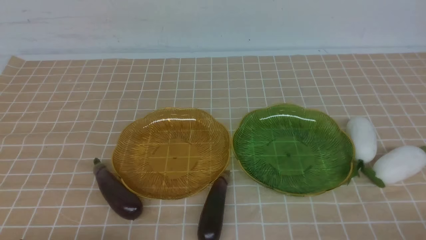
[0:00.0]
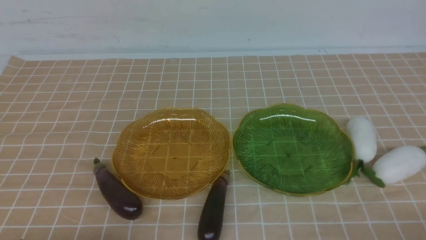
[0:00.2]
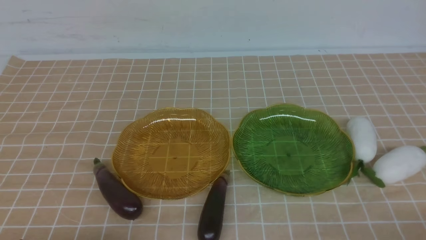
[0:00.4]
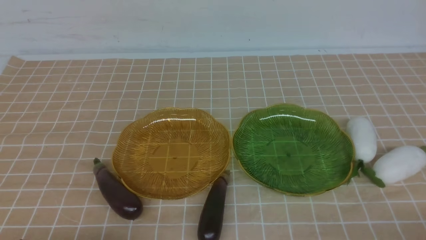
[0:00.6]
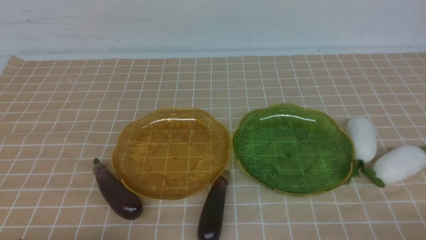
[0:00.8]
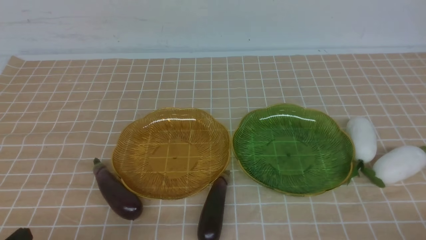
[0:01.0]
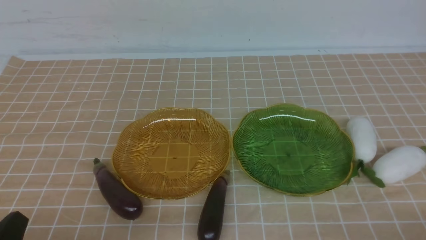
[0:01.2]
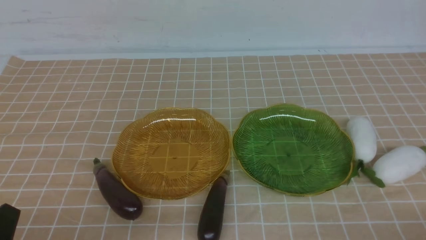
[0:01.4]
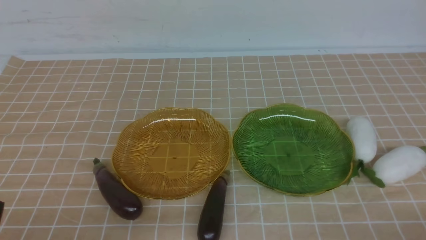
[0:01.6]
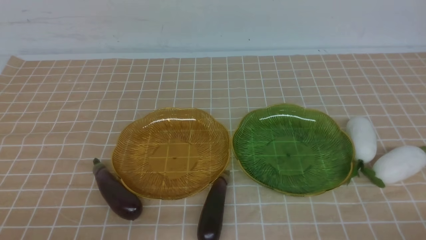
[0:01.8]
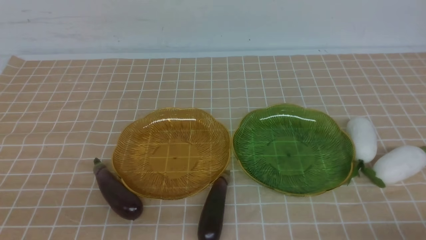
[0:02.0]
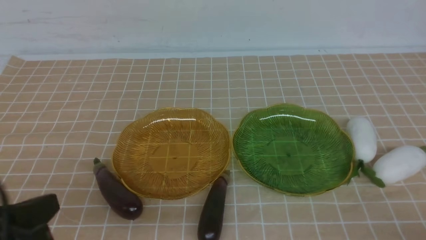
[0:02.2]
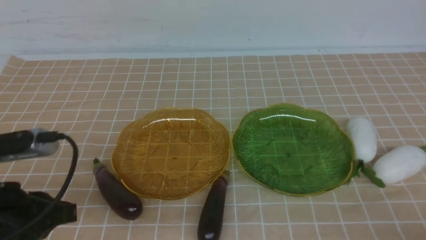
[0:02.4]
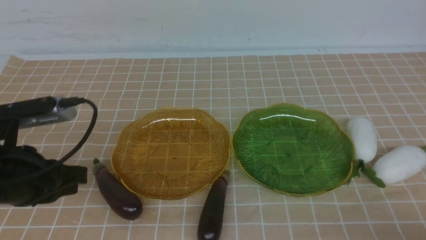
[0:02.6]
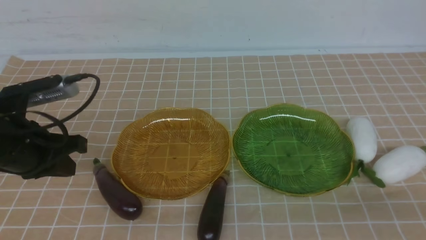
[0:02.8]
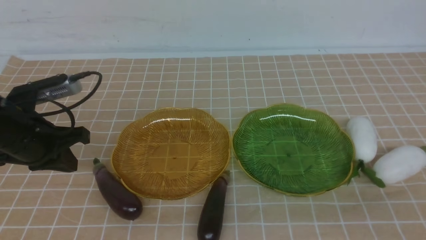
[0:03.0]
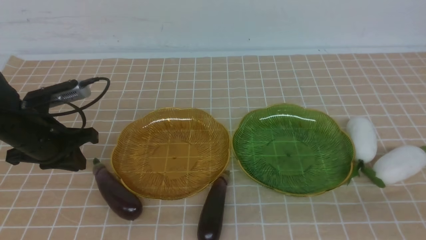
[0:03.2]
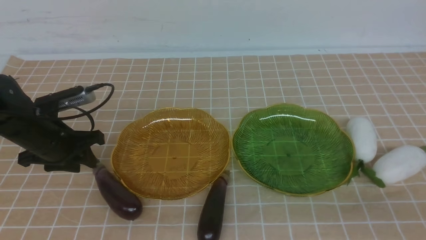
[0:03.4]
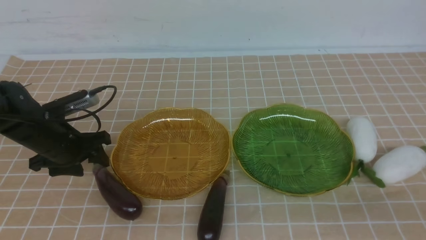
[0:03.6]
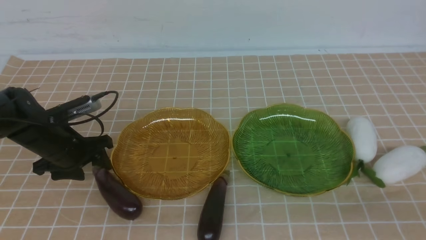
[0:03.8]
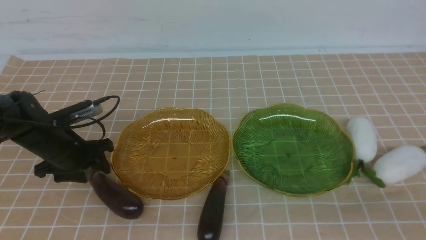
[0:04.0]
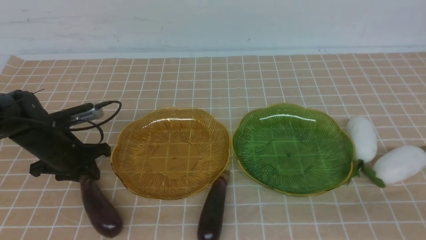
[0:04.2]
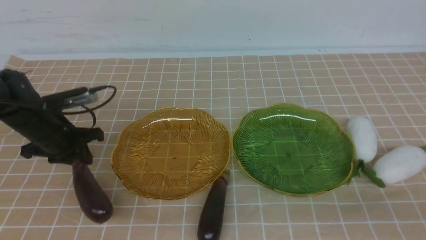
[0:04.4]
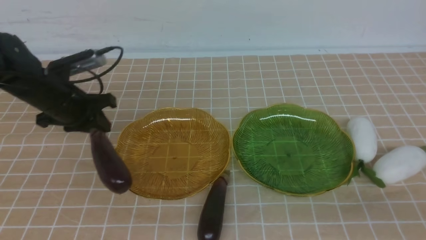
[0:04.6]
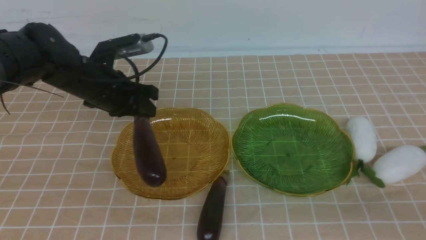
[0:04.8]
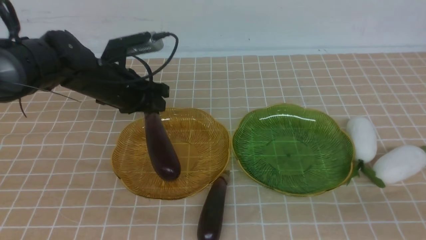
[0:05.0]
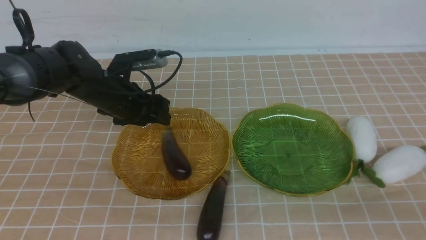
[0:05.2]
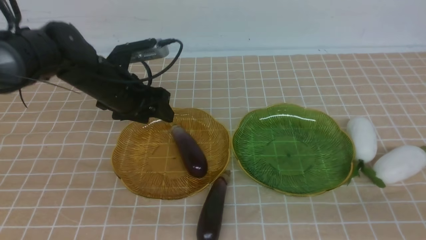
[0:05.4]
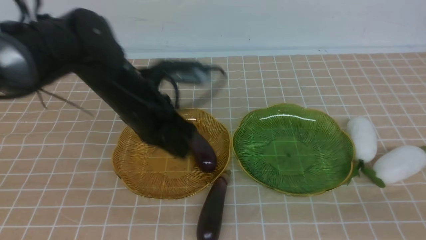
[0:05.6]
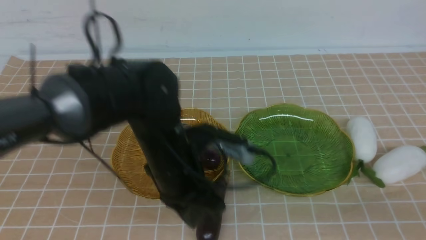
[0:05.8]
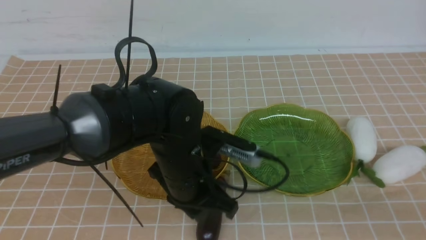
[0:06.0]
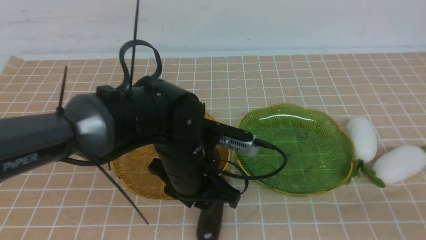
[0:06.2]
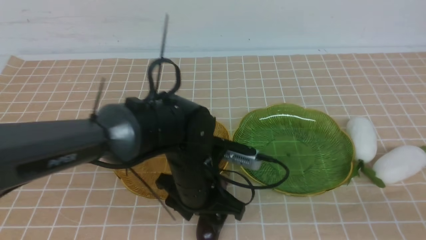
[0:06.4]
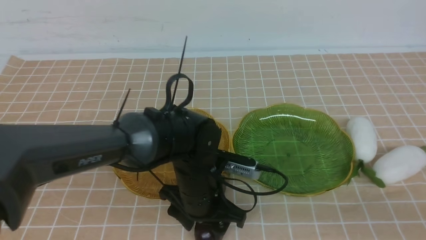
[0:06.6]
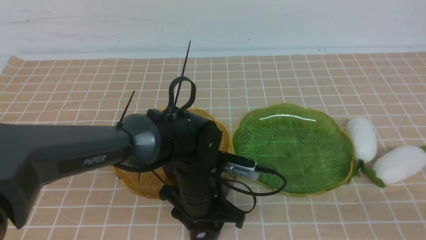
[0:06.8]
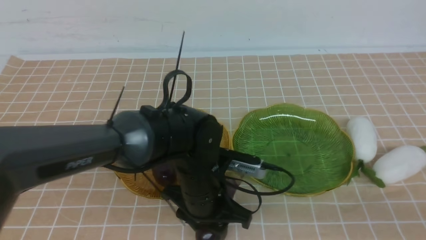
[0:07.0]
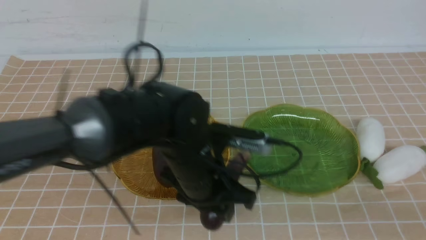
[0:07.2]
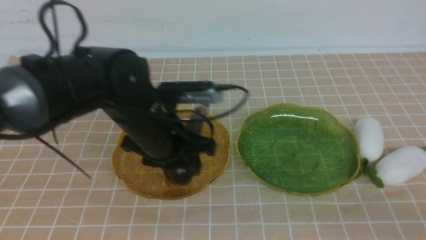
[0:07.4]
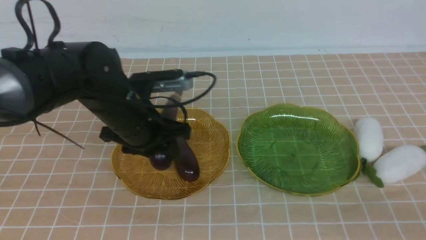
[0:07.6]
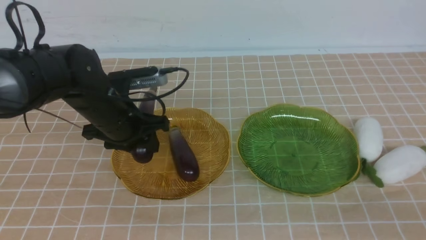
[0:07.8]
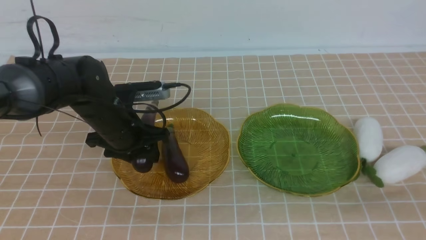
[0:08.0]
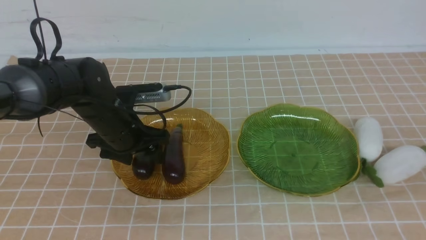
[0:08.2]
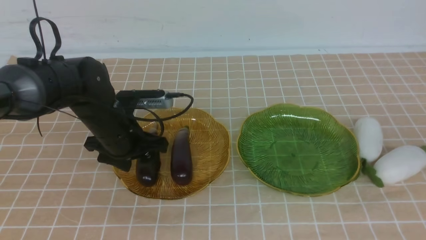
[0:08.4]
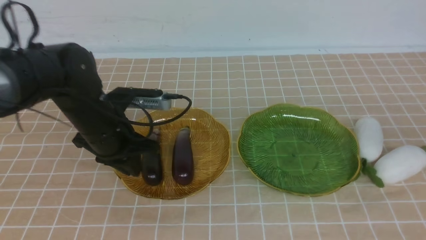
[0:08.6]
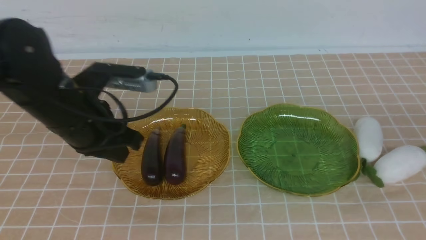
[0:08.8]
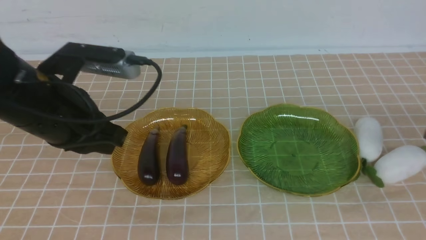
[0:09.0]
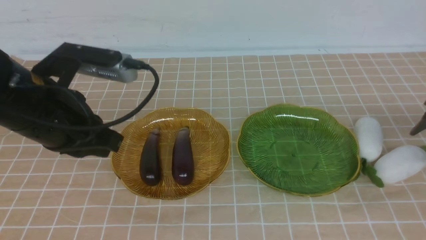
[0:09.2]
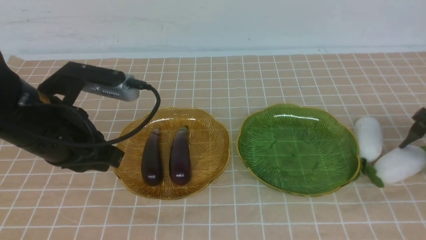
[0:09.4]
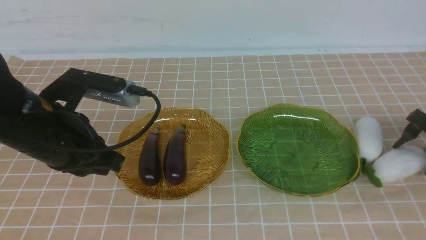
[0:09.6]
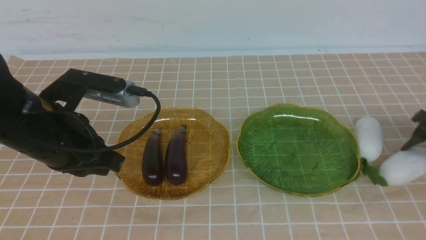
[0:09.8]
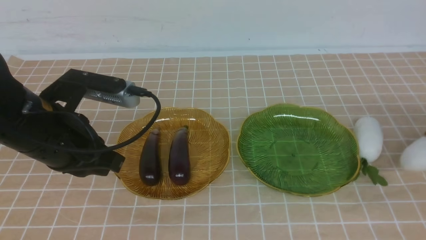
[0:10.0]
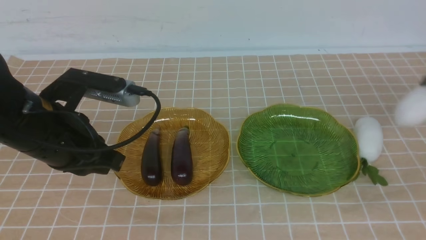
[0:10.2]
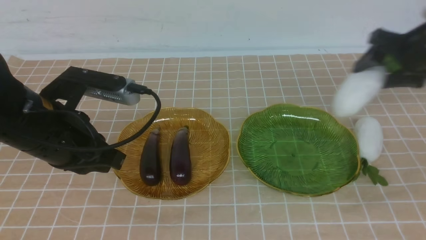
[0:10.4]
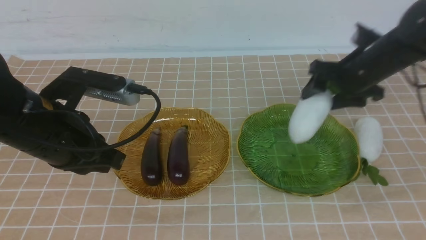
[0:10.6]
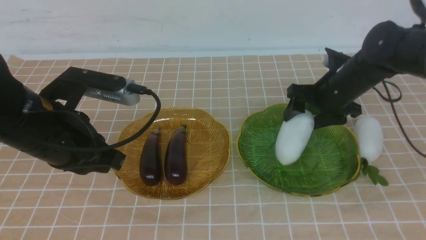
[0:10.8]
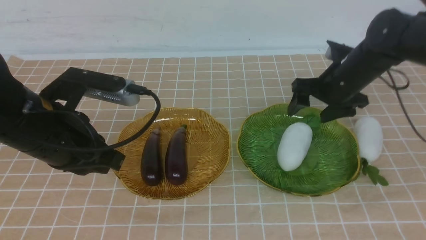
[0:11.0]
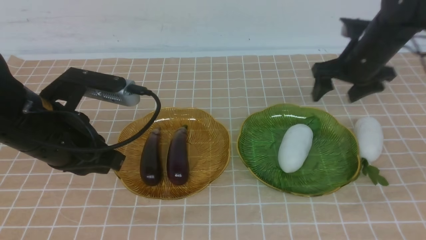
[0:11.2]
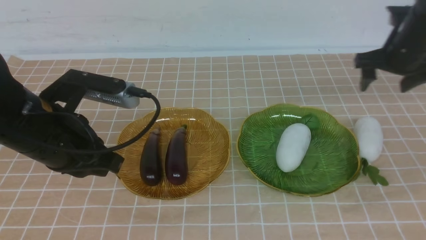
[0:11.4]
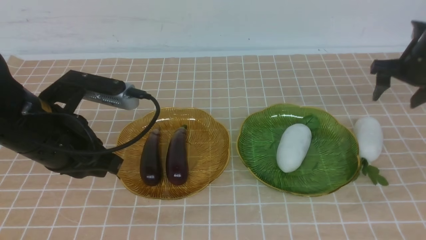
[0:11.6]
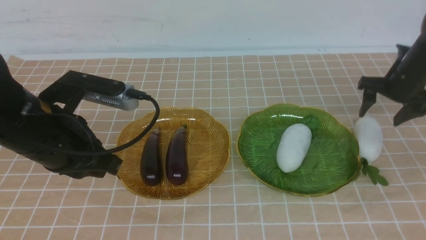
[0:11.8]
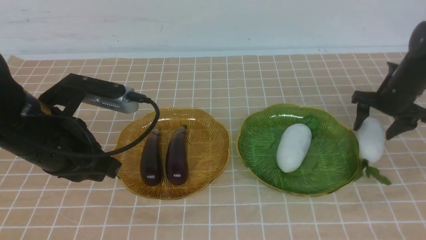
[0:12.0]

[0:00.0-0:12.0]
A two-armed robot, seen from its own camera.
Step, 0:00.0 to 0:05.2: use the left arm to grab an eggplant and put it into the left plate.
Step, 0:05.6 to 0:08.4: use the left arm to grab an eggplant and put it into the left plate.
0:01.6 to 0:03.0: The left gripper moves forward, roughly 25 cm.
0:03.0 to 0:04.4: The left gripper is displaced forward by approximately 10 cm, and opens, then closes once more.
0:04.4 to 0:06.0: The left gripper is displaced to the right and backward by roughly 25 cm, and opens, then closes once more.
0:06.0 to 0:07.6: The left gripper heads to the left and forward, covering approximately 10 cm, and opens up.
0:07.6 to 0:09.0: The right gripper travels forward and to the right by approximately 30 cm, and opens its fingers. The left gripper travels upward, backward and to the left by some 15 cm, and closes up.
0:09.0 to 0:10.4: The right gripper shifts about 10 cm forward and to the left.
0:10.4 to 0:12.0: The right gripper is displaced downward and forward by about 10 cm, and reaches approximately 10 cm to the left, then returns.

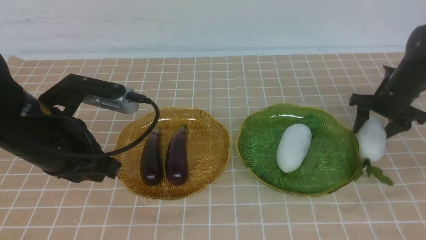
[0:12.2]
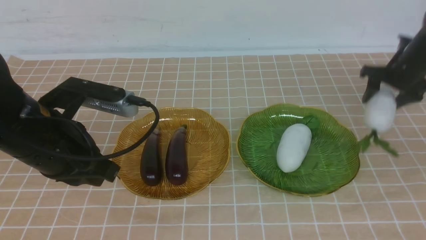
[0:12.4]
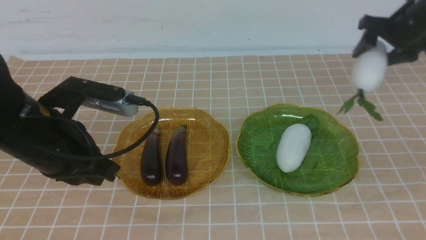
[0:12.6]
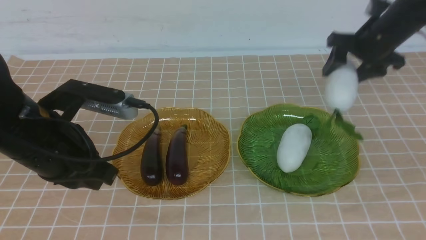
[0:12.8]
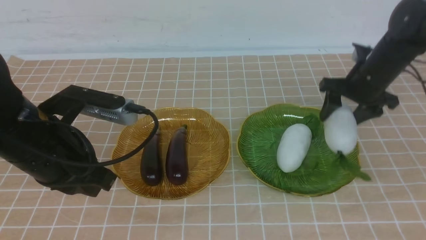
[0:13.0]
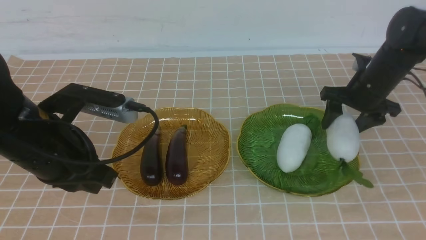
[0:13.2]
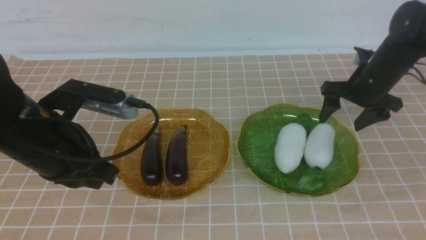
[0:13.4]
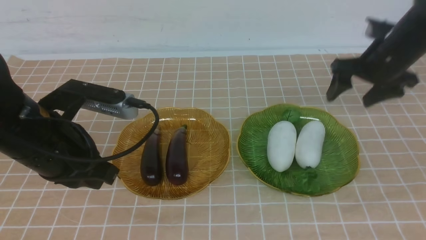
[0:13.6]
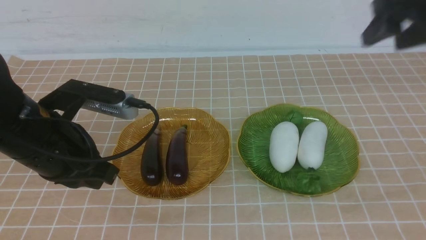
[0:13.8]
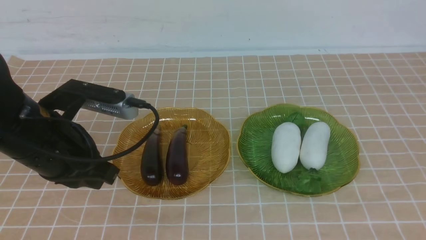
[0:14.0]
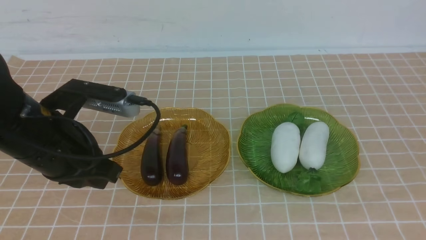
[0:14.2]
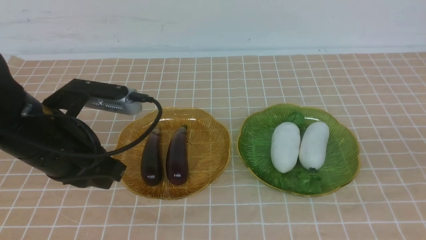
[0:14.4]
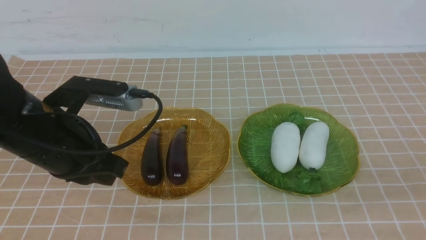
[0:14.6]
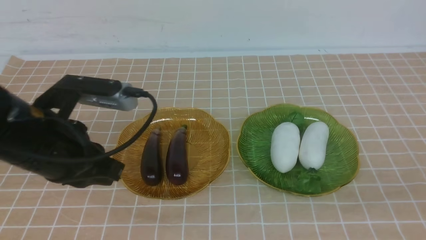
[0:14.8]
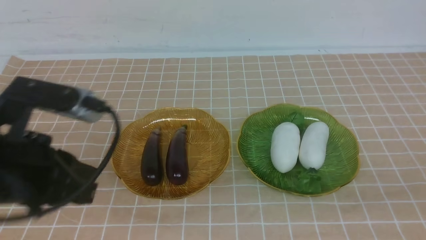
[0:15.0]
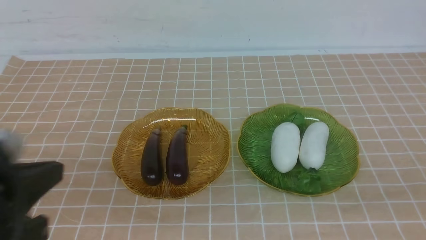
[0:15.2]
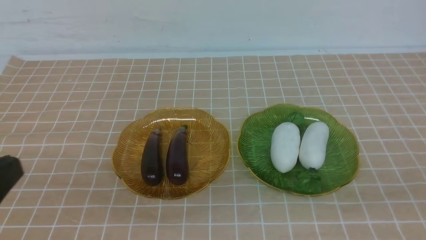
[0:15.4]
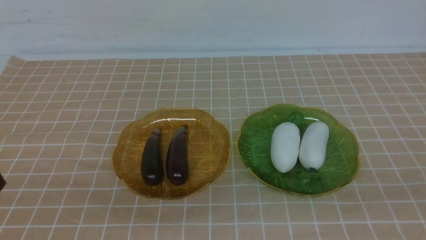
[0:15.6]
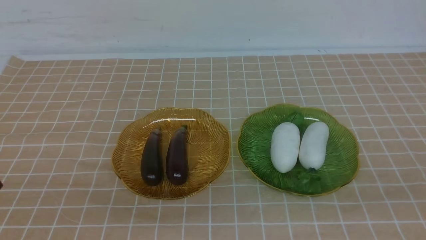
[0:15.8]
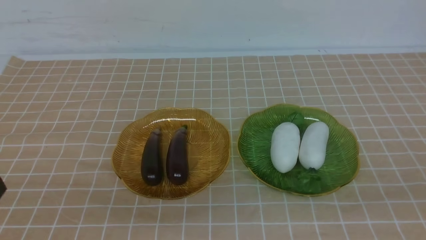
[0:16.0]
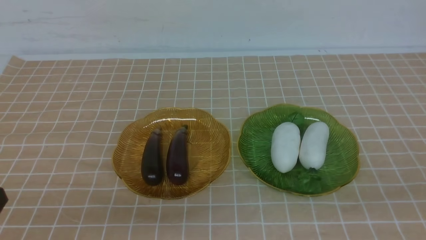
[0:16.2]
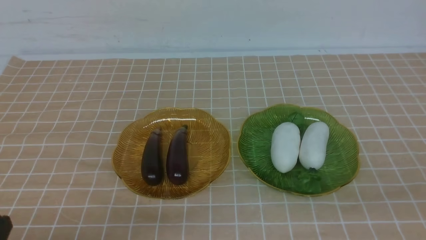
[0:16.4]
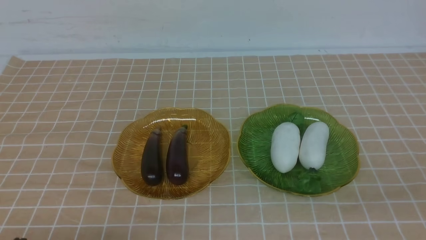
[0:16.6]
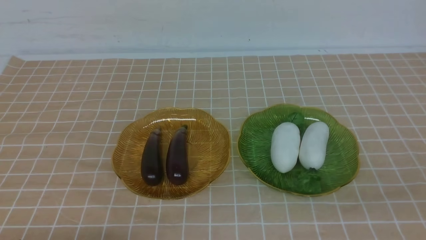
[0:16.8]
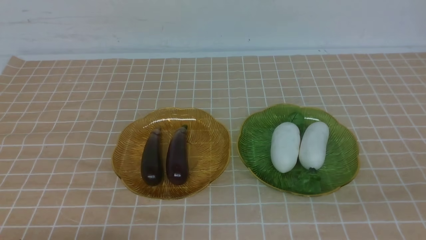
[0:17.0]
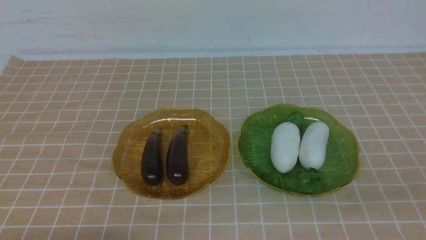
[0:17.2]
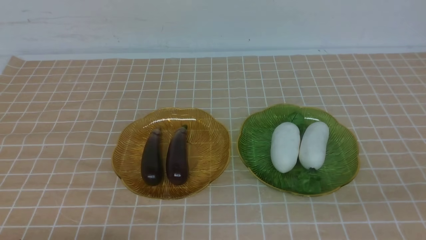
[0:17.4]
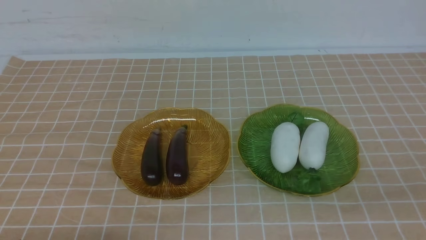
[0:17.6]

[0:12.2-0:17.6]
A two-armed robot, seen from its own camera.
0:12.2 to 0:13.6: The right gripper goes roughly 40 cm backward and upward, and closes.
0:13.6 to 0:15.0: The right gripper goes approximately 15 cm downward and backward, while the left gripper goes approximately 20 cm backward.
0:15.0 to 0:16.2: The left gripper goes roughly 15 cm downward.
